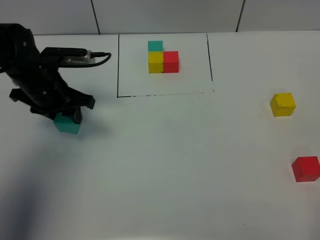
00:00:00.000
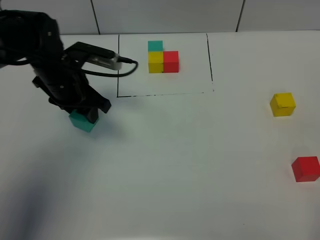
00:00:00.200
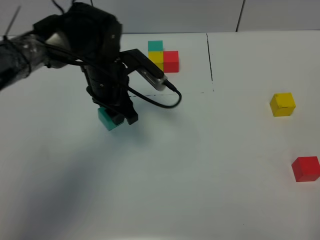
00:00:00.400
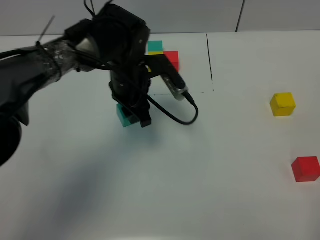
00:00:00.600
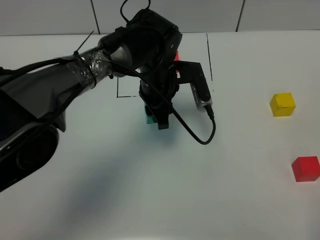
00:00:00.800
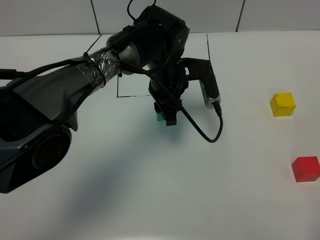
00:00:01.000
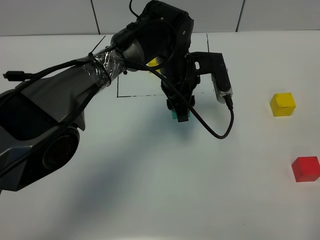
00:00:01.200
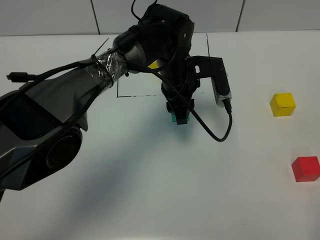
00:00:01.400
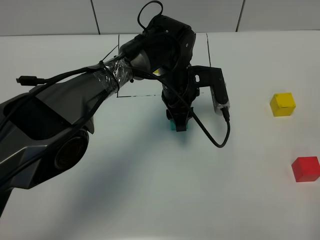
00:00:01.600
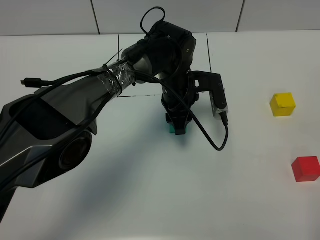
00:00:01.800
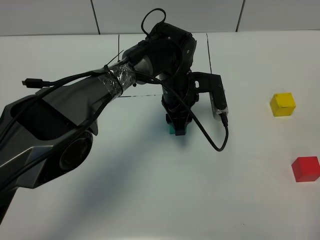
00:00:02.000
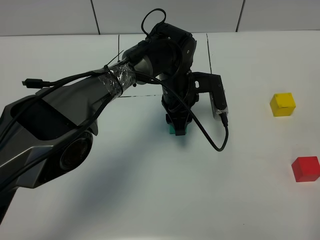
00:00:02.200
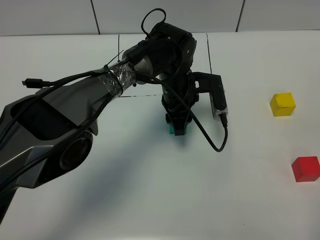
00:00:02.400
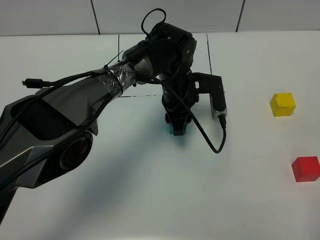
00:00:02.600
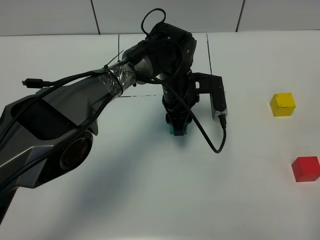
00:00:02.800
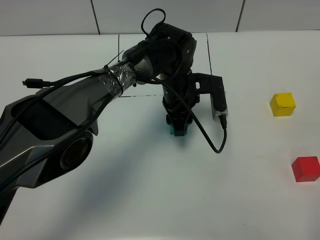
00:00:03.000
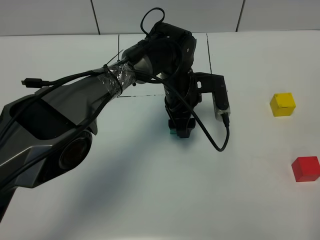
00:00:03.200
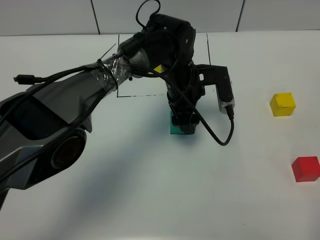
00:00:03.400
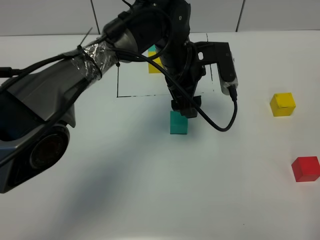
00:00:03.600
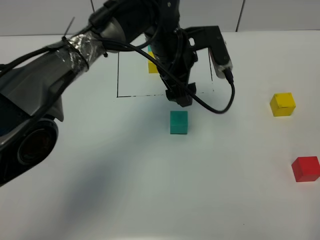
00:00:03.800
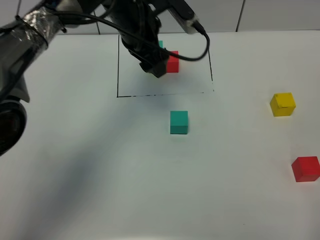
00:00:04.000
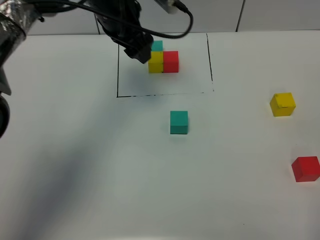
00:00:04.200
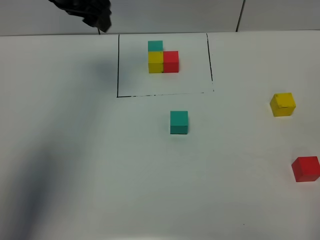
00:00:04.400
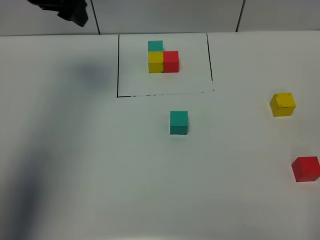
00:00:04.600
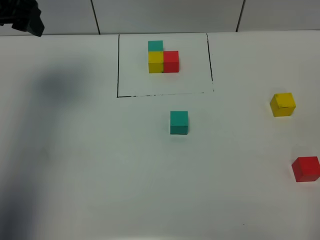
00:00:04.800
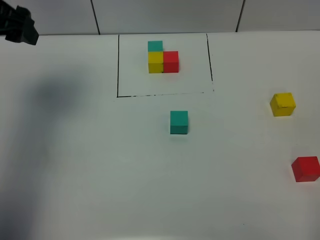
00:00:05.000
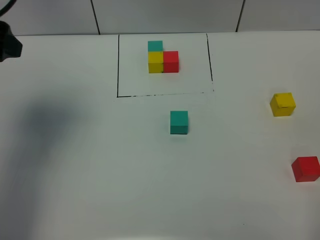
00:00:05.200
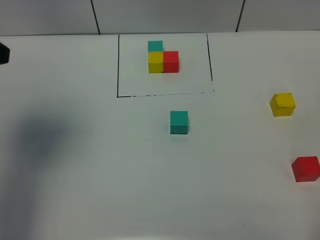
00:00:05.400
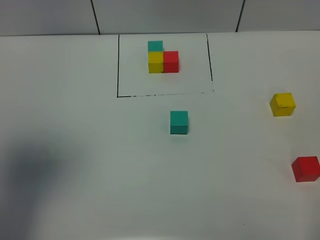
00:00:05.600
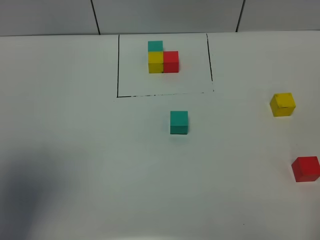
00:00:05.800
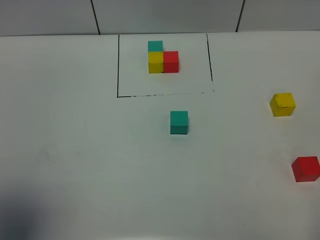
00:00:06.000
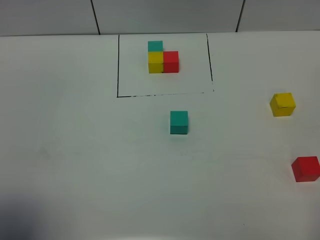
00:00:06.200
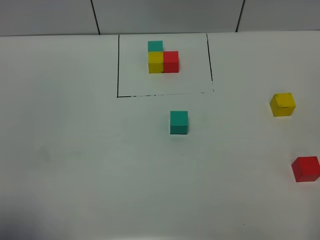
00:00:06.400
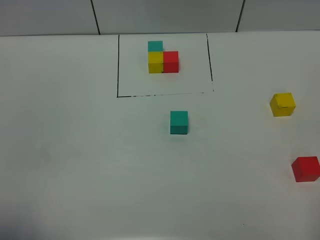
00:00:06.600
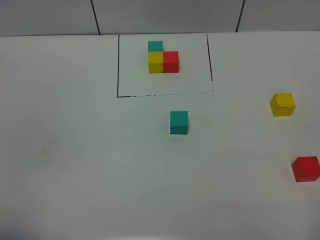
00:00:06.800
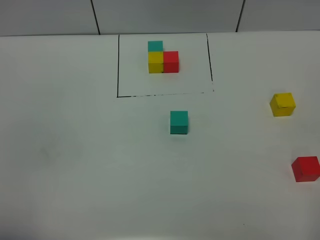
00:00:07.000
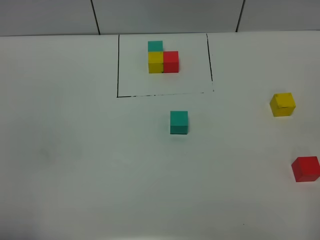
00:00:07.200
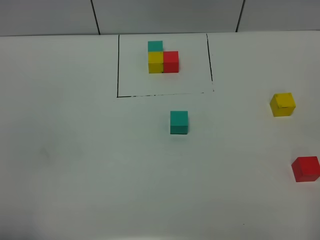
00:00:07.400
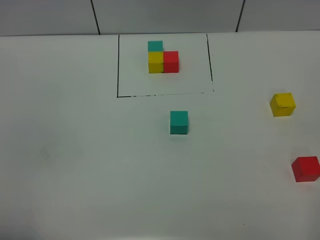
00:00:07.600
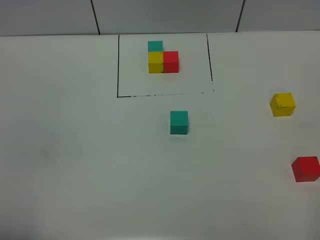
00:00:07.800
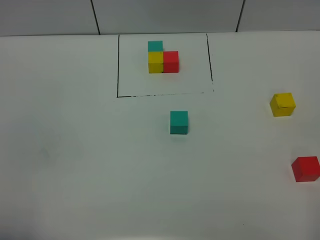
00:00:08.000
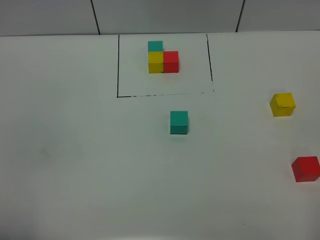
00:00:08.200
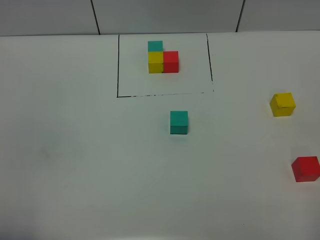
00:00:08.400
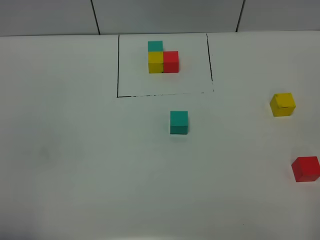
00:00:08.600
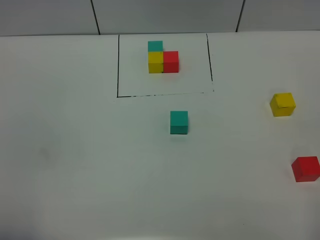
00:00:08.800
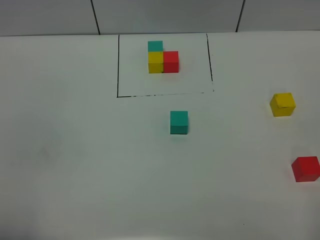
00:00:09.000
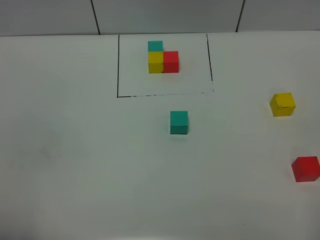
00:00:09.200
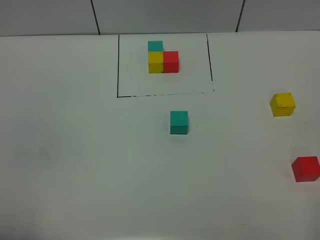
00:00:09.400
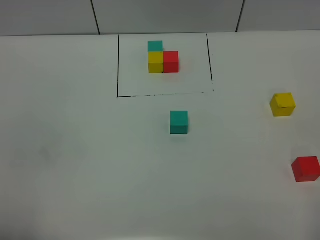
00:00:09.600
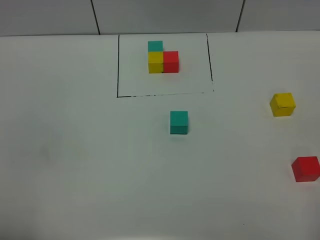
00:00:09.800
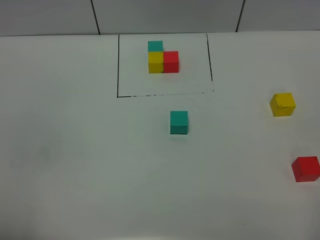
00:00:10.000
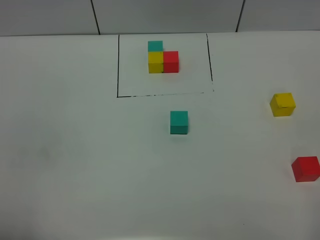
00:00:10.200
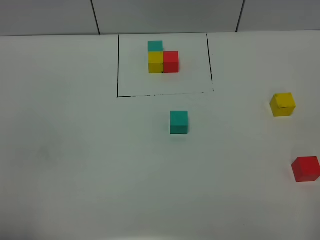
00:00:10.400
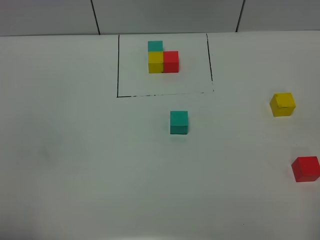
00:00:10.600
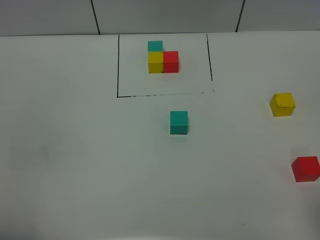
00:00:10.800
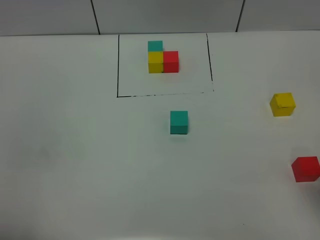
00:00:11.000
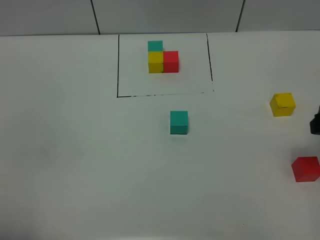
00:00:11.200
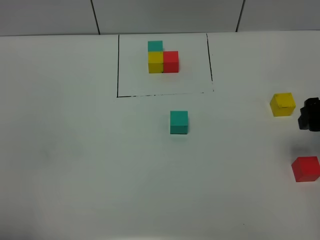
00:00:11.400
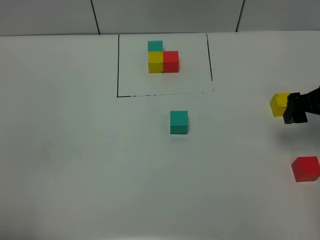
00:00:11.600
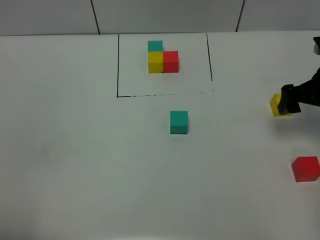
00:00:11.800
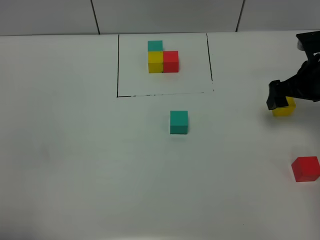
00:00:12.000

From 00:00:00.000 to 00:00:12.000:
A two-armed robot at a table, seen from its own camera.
Task of the whole recording: According to the building block template in front, assemble the scattered blocks together.
Step, from 00:00:00.000 to 00:00:03.000: Put the green build block in the center of the table.
From 00:00:00.000 to 00:00:01.600: The left gripper shifts about 25 cm to the right.
From 00:00:01.600 to 00:00:03.000: The grippers make only small movements.
From 00:00:03.000 to 00:00:04.400: The left gripper goes approximately 30 cm upward and to the left, and opens its fingers.
From 00:00:04.400 to 00:00:06.000: The left gripper heads backward, covering about 40 cm.
From 00:00:06.000 to 00:00:07.600: The left gripper travels downward and backward by roughly 10 cm.
From 00:00:07.600 to 00:00:10.400: Both grippers stay put.
From 00:00:10.400 to 00:00:12.000: The right gripper shifts approximately 35 cm forward.

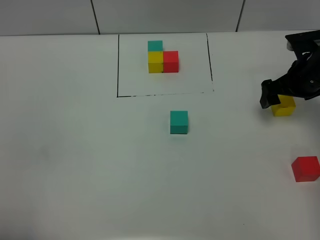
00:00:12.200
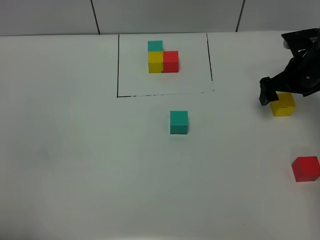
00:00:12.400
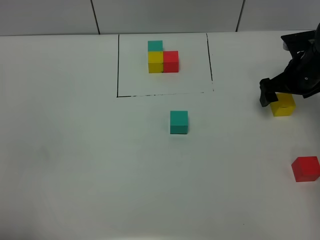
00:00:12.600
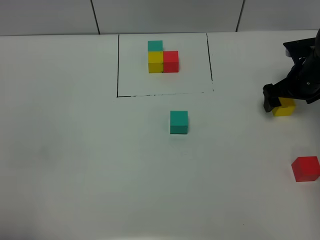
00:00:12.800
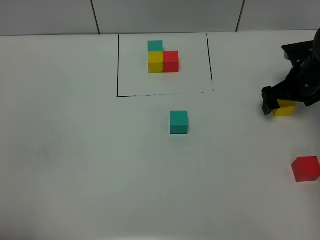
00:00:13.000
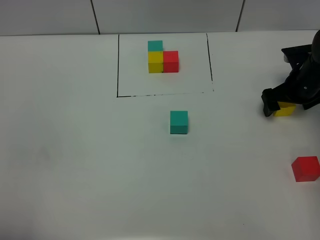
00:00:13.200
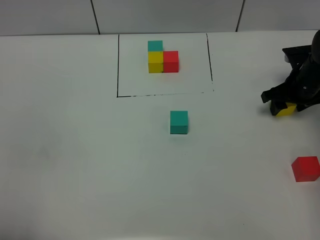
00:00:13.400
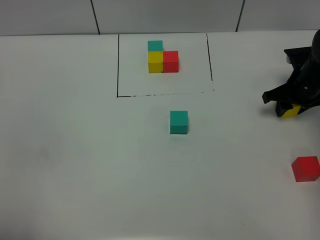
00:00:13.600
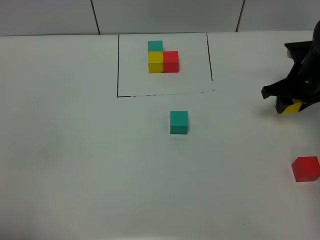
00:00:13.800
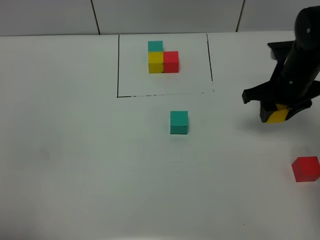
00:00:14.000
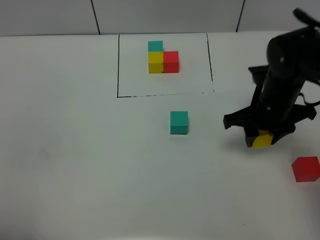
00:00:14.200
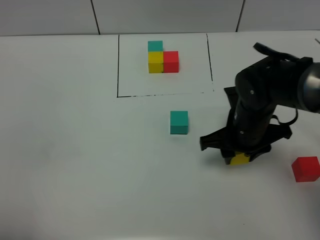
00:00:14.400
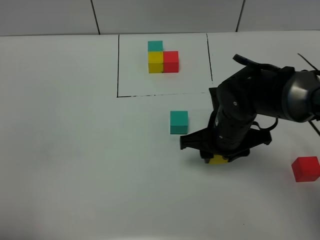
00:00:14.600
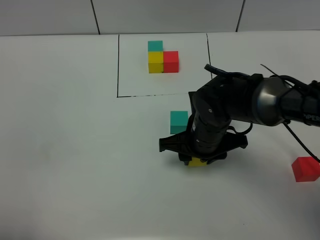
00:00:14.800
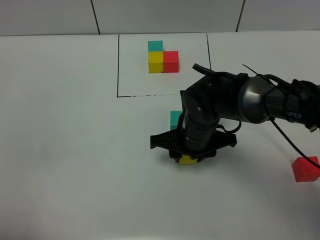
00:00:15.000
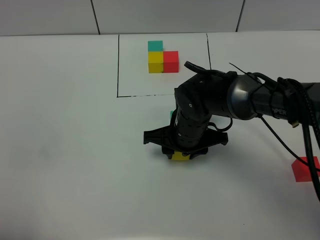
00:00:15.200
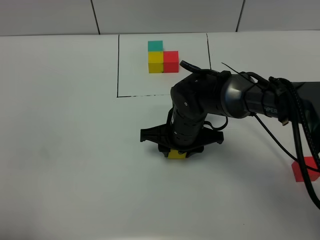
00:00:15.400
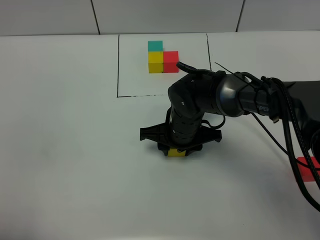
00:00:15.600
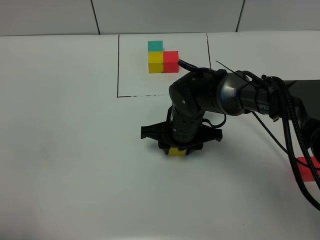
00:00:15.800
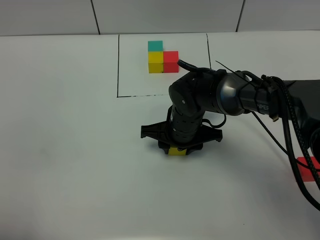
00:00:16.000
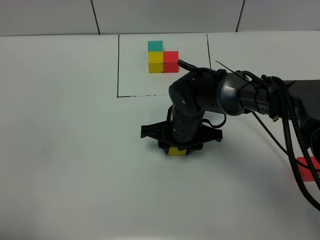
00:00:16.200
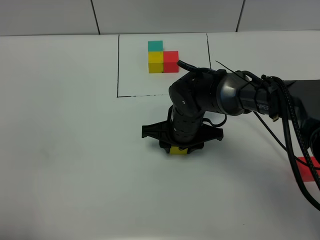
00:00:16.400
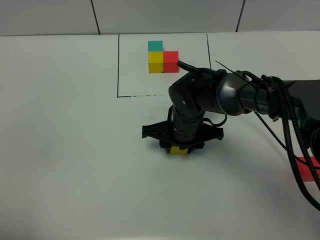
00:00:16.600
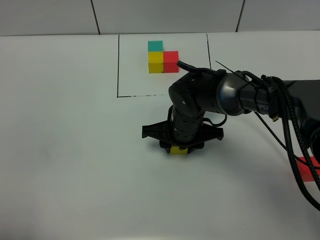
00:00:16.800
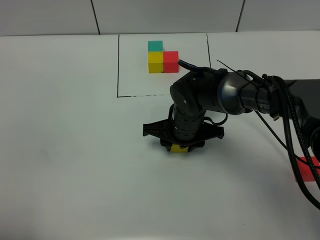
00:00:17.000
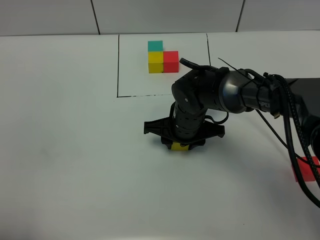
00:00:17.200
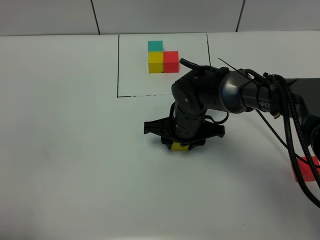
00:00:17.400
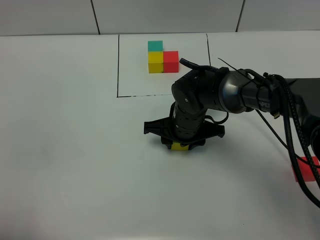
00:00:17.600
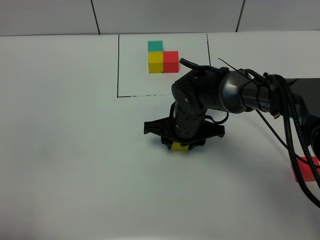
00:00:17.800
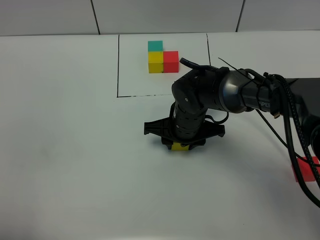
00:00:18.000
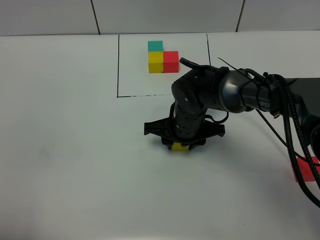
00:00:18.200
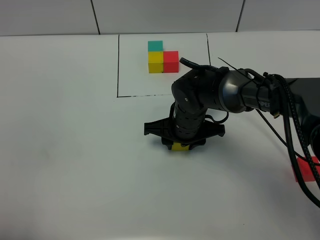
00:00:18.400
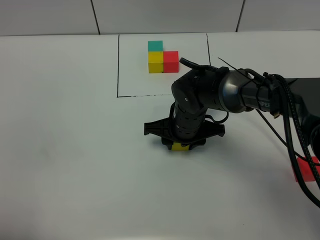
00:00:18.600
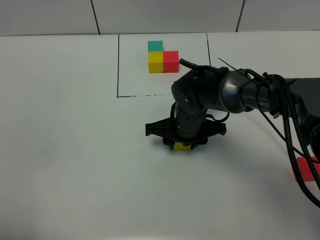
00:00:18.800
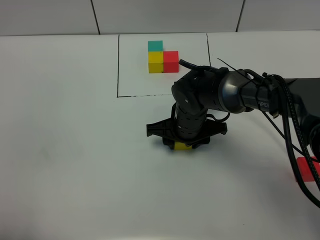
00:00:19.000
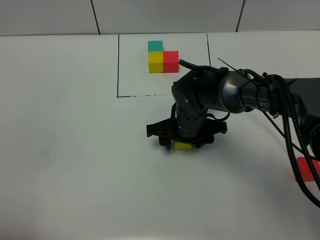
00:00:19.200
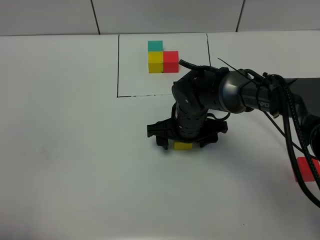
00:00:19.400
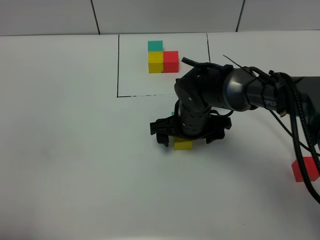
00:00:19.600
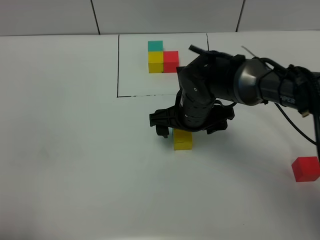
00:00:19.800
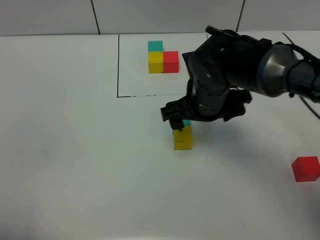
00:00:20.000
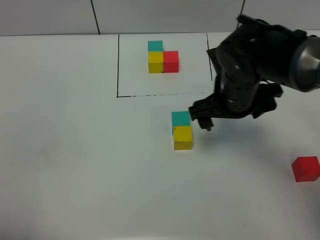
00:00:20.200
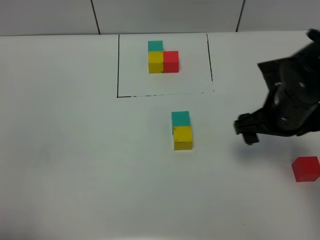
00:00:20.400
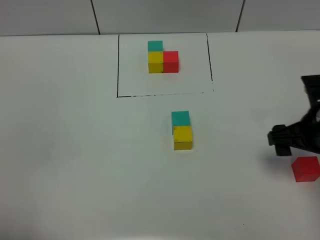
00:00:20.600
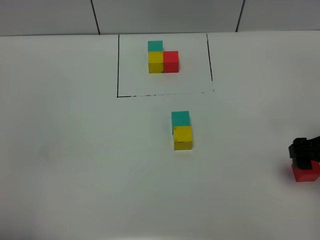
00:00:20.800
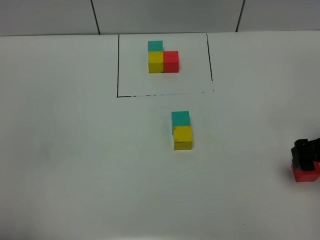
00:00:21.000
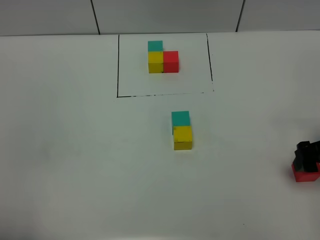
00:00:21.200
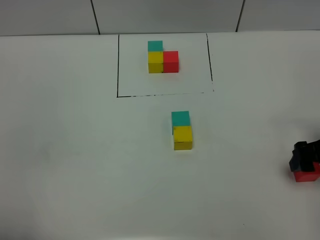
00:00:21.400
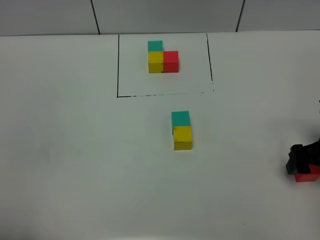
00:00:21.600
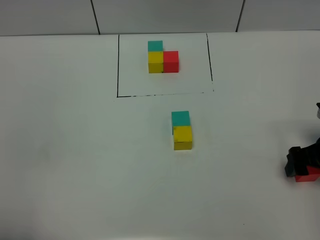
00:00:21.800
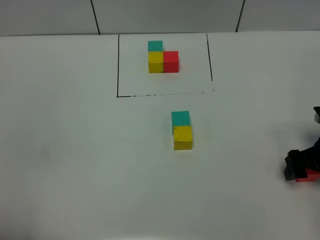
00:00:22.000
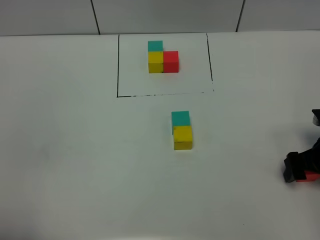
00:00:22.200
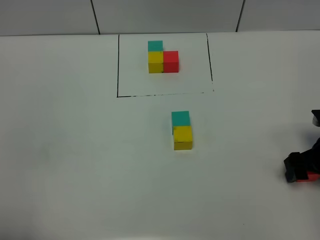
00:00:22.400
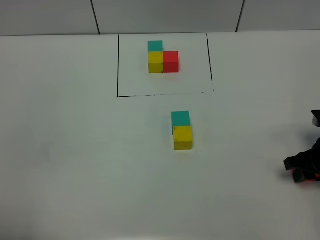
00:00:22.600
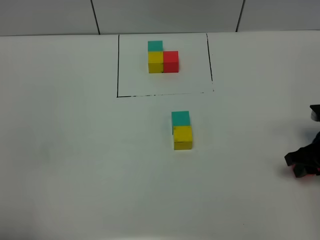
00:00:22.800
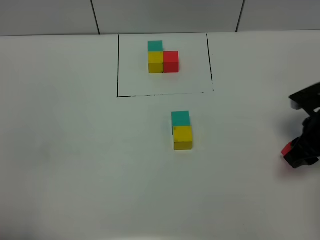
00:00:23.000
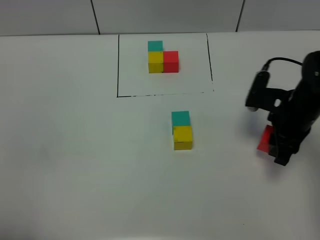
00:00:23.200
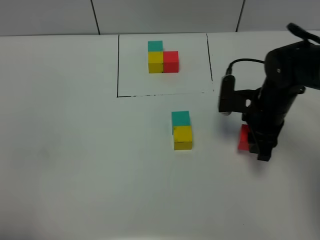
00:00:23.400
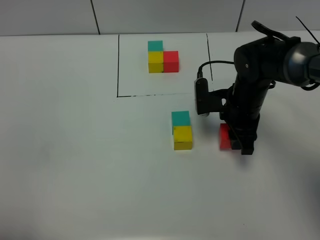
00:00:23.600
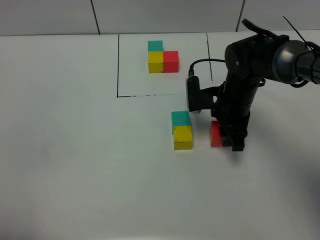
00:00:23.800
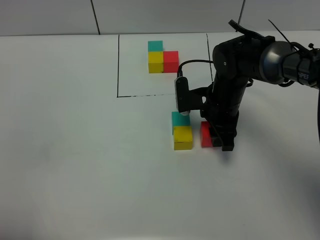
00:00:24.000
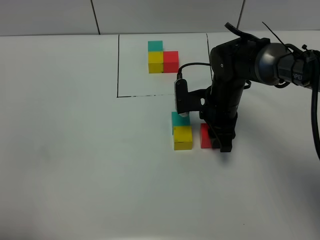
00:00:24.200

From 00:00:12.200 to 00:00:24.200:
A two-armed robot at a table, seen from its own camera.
Task of the whole recording: According to the building block template in front, assemble the scattered blocks together.
Step, from 00:00:12.200 to 00:00:19.800: Put the yellow build block on the behind of the green build block.
From 00:00:12.200 to 00:00:13.800: The right gripper closes its fingers.
From 00:00:13.800 to 00:00:15.200: The right gripper moves to the left and backward, roughly 25 cm.
From 00:00:15.200 to 00:00:16.600: There are only small adjustments of the grippers.
From 00:00:16.600 to 00:00:18.200: Both grippers stay about where they are.
From 00:00:18.200 to 00:00:19.800: The right gripper opens.
From 00:00:19.800 to 00:00:21.200: The right gripper heads to the right, covering approximately 25 cm.
From 00:00:21.200 to 00:00:22.600: The right gripper heads downward, covering roughly 5 cm, and closes up.
From 00:00:22.600 to 00:00:24.200: The right gripper goes about 25 cm to the left and forward.
